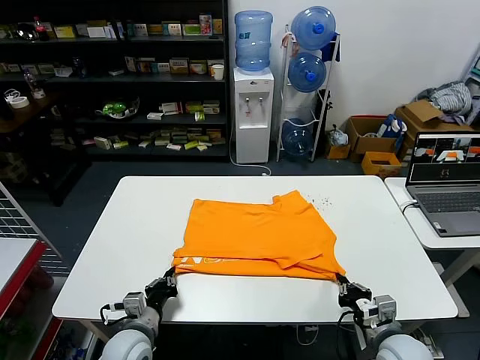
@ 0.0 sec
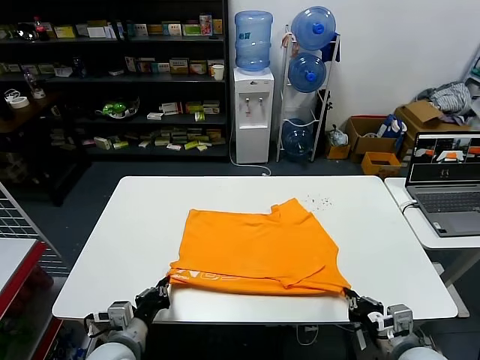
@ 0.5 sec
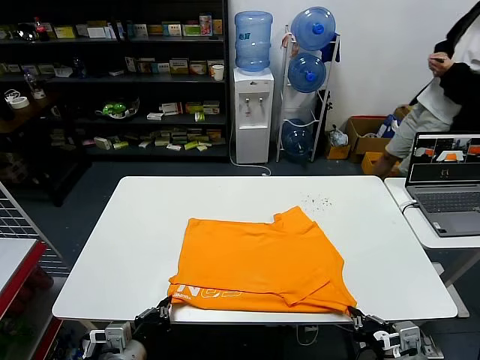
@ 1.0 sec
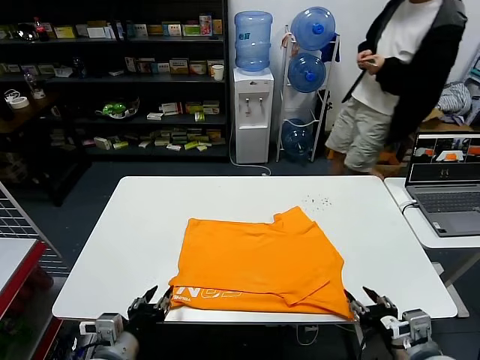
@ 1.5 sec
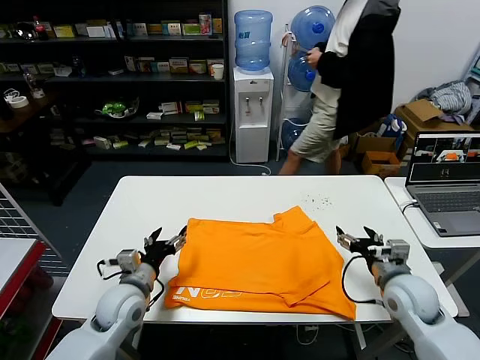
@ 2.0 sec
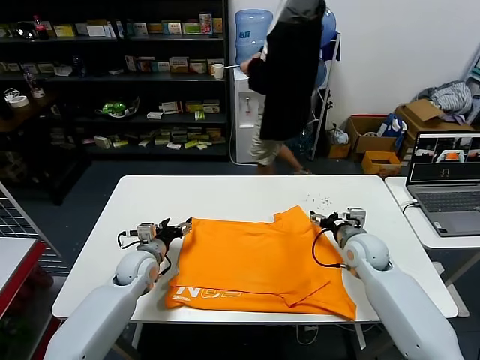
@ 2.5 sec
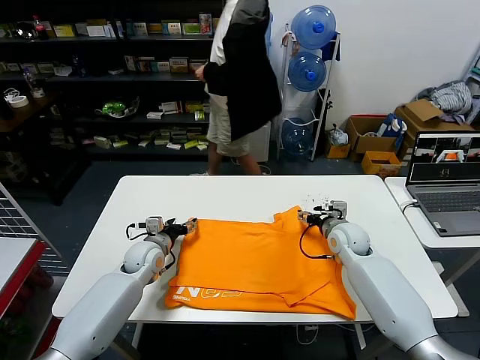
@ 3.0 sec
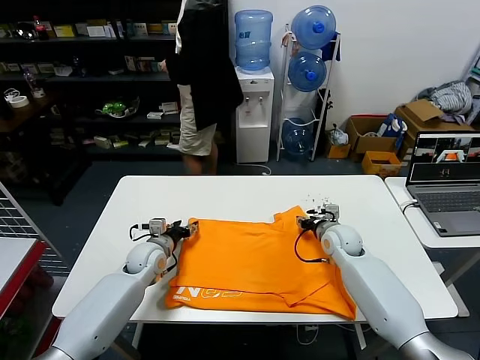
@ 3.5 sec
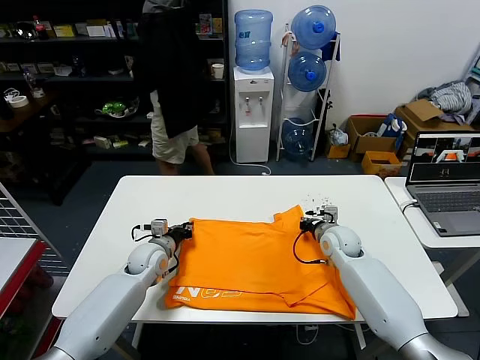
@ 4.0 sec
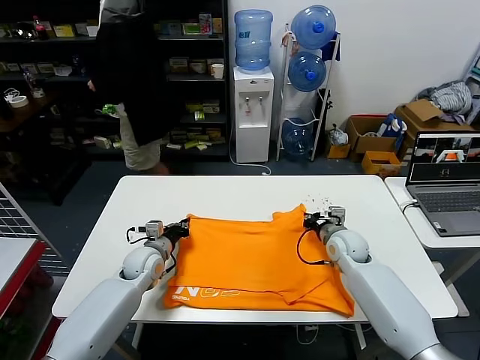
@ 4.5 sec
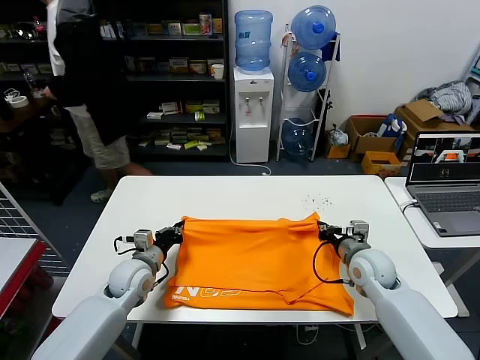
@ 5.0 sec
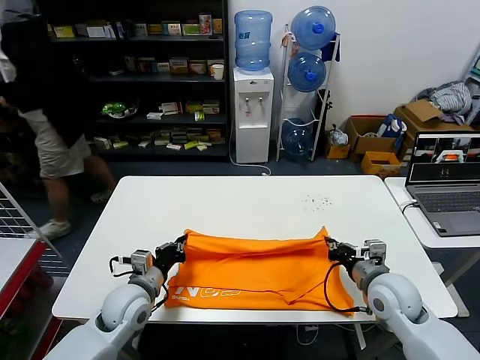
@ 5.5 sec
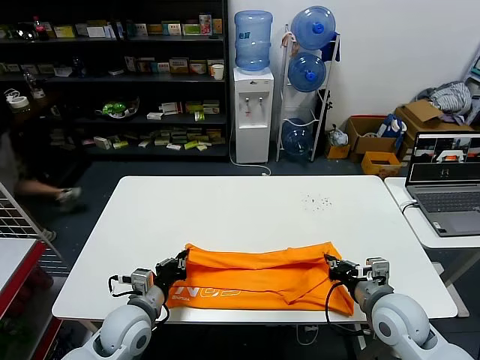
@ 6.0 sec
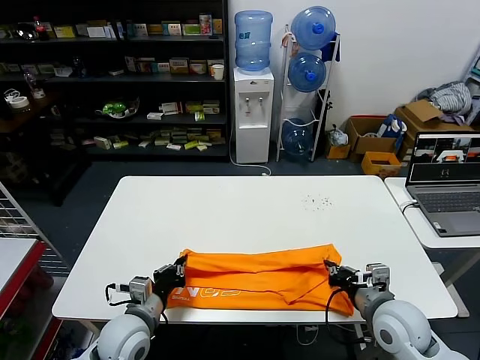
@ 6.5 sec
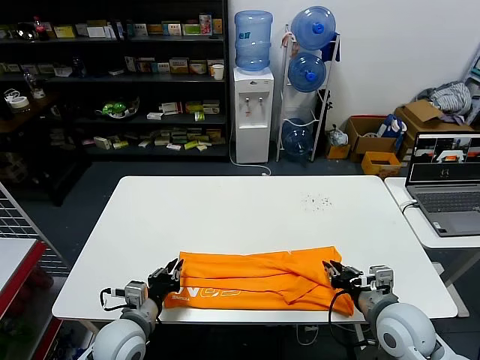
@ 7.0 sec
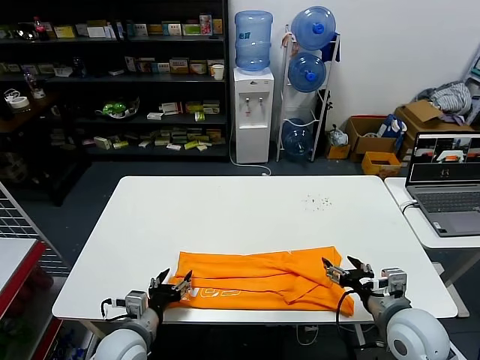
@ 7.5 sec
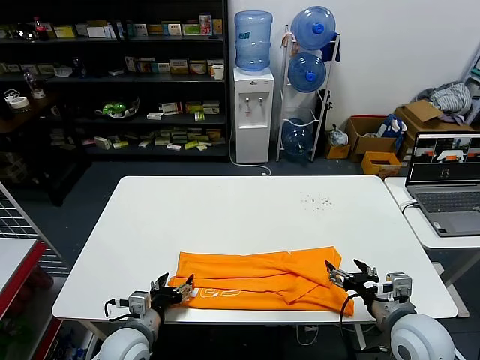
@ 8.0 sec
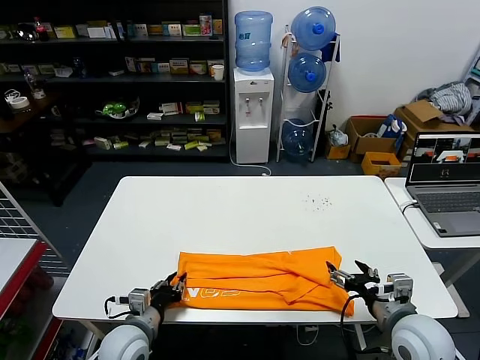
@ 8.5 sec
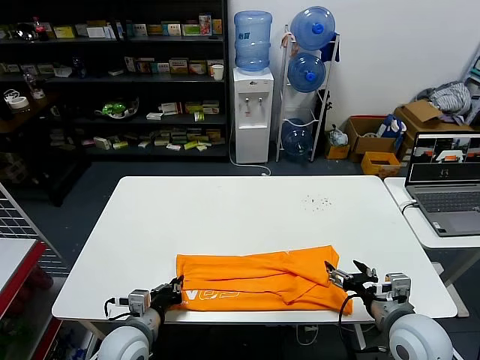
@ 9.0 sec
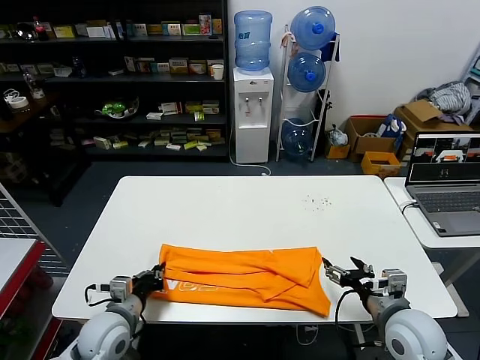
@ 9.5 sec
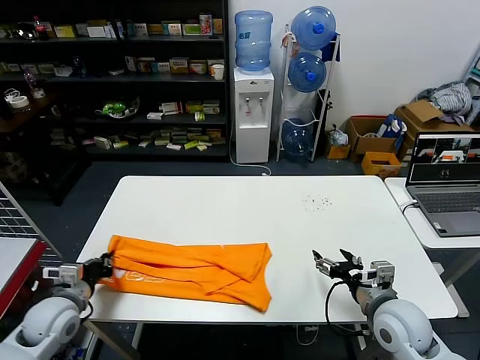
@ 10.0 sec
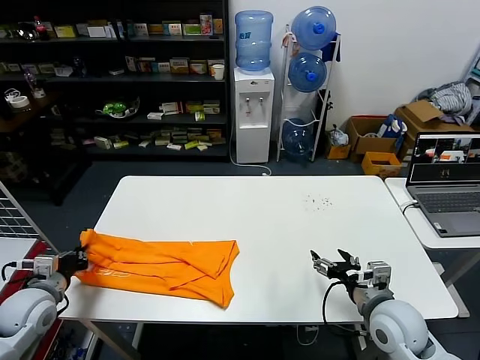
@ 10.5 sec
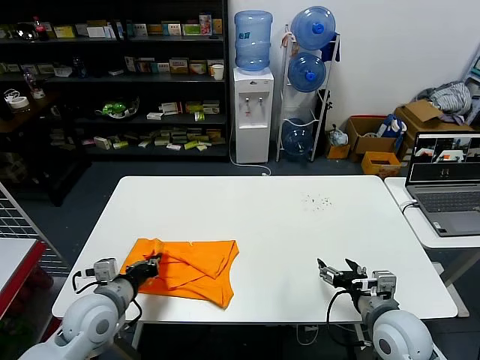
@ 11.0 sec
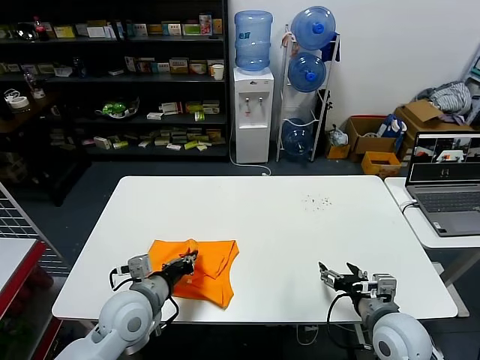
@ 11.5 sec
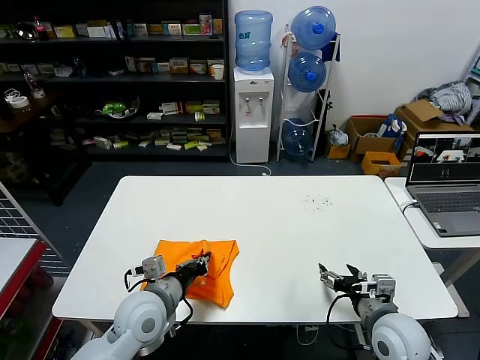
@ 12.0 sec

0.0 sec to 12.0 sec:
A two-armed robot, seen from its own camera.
Task of the whole recording: fold and organize the clothes.
Step, 1.5 sec to 4.0 sec: use both grippers simultaneously to clamp the upper edge of the clothing fabric.
Step, 4.5 sec to 7.0 sec: use both grippers to drag the upper edge of the fabric backward and fold it over the lower edge.
Step, 7.5 sec to 8.5 sec: use the left gripper to clamp the left edge of the fabric.
0.0 sec to 2.0 sec: Both grippers travel together forward and upward, about 10 cm. The right gripper opens up; the left gripper opens its fingers.
2.0 sec to 4.0 sec: The right gripper travels forward and to the left by roughly 15 cm, and closes, while the left gripper goes about 15 cm forward, and closes up.
4.0 sec to 6.0 sec: Both grippers travel together backward, some 20 cm.
6.0 sec to 8.0 sec: The right gripper opens; the left gripper ends up some 5 cm from where it was, and opens its fingers.
8.0 sec to 10.0 sec: The left gripper shifts about 15 cm to the left and upward, and closes.
10.0 sec to 12.0 sec: The left gripper moves to the right, approximately 20 cm.

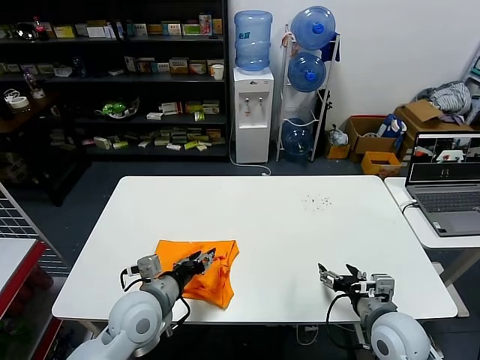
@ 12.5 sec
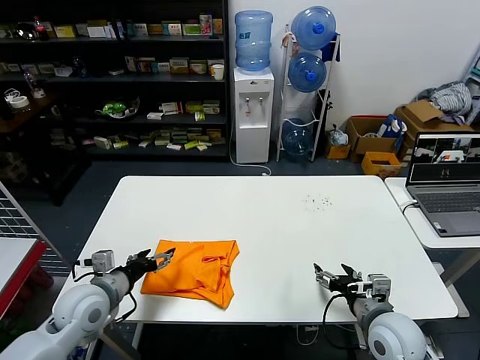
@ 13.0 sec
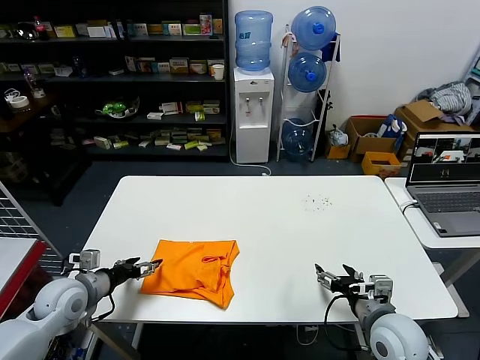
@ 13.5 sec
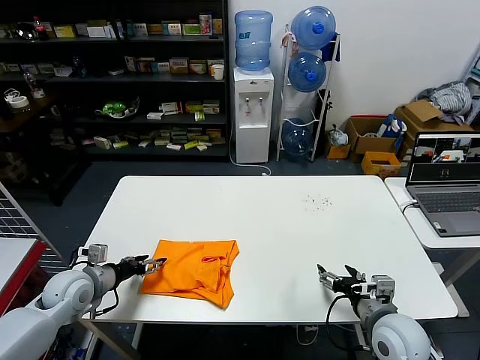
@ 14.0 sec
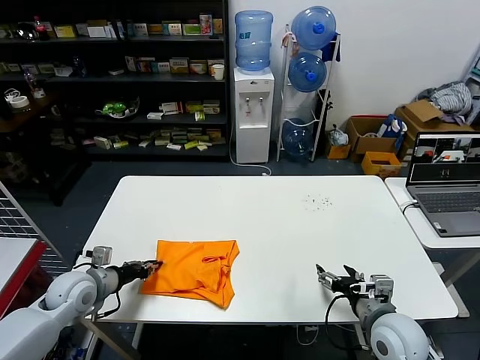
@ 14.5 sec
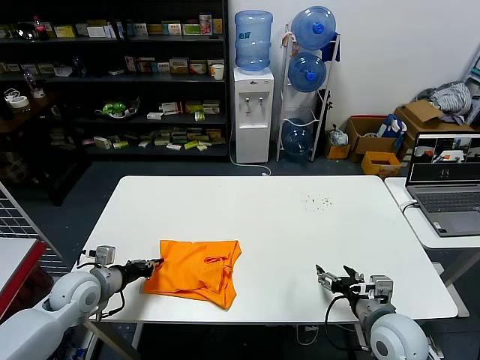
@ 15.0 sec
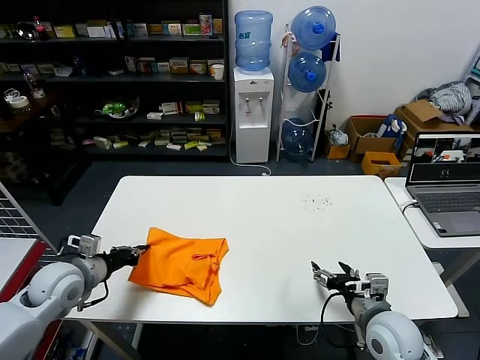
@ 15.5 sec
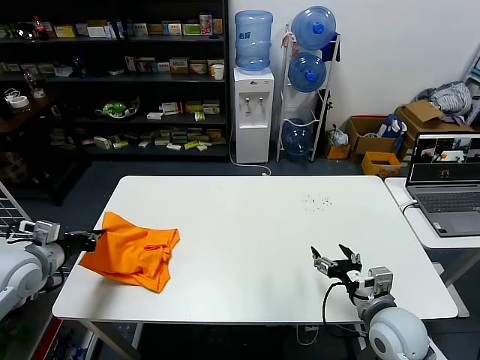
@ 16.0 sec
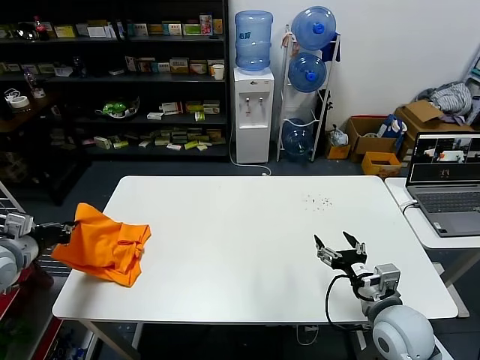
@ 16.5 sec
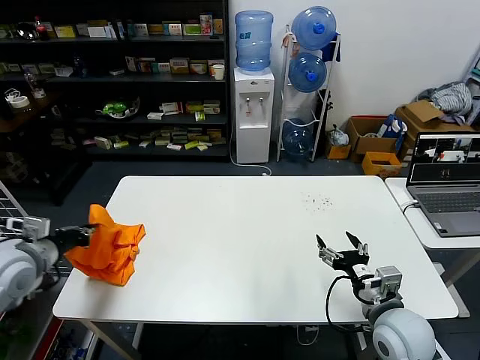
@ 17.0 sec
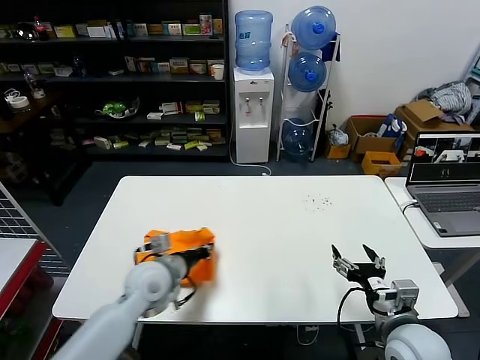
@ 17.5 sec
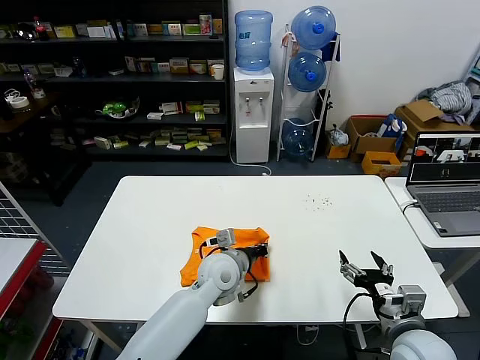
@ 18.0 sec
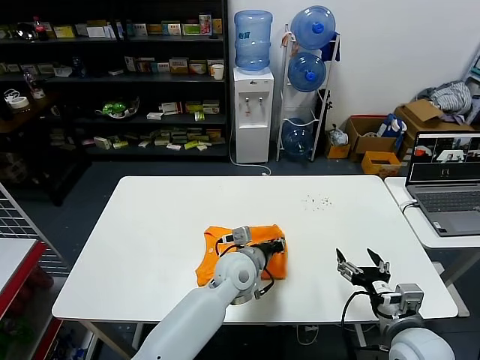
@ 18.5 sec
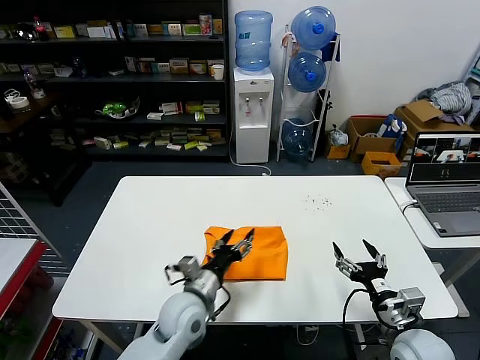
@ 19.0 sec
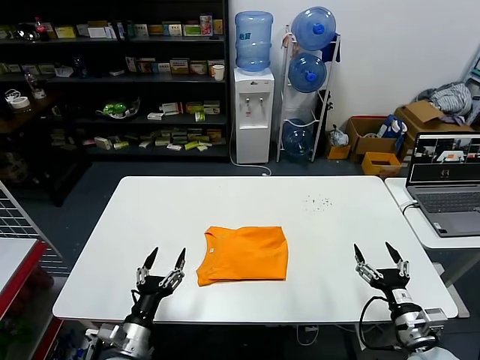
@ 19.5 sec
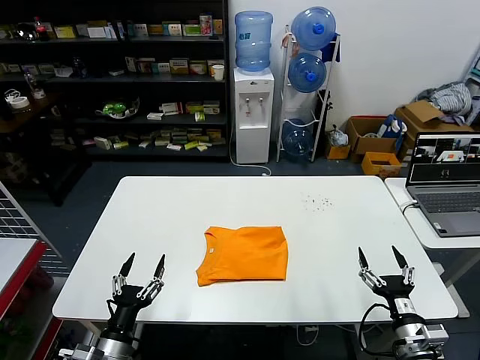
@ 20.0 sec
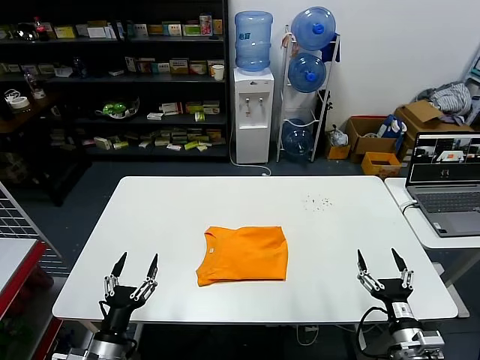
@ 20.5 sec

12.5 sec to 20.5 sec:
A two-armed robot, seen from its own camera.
Task of the whole recording: fold and organize the clothes.
Step, 12.5 sec to 18.5 sec: Flip the folded clothes over with left gripper.
12.5 sec to 14.5 sec: The left gripper shifts some 20 cm to the left, and opens, then closes once more.
14.5 sec to 16.5 sec: The left gripper goes roughly 15 cm upward and to the left, and closes.
16.5 sec to 18.5 sec: The left gripper goes about 50 cm to the right.
18.5 sec to 20.5 sec: The right gripper goes some 10 cm downward; the left gripper shifts some 35 cm to the left and backward, and opens up.
